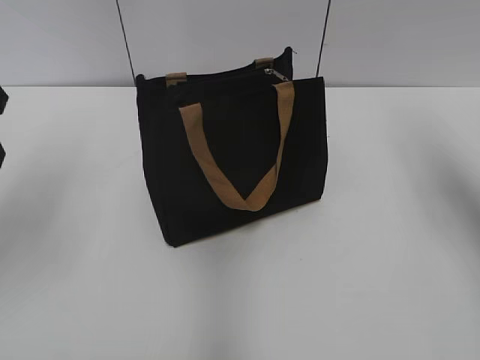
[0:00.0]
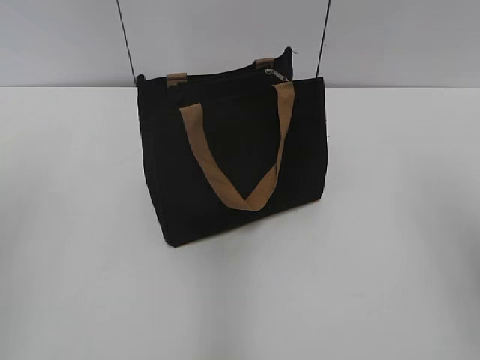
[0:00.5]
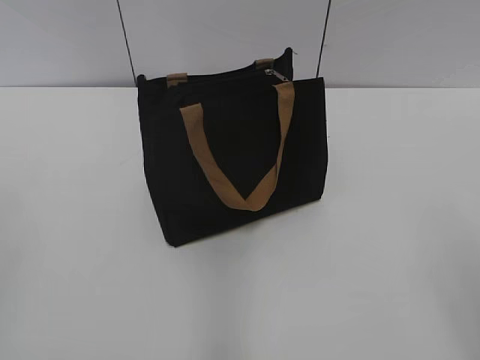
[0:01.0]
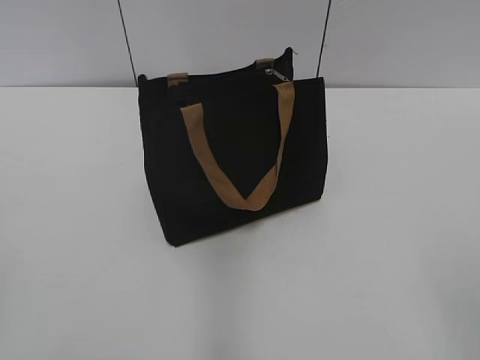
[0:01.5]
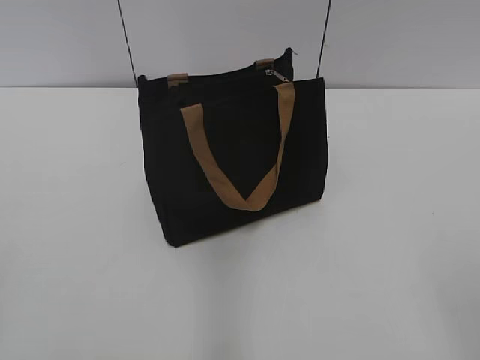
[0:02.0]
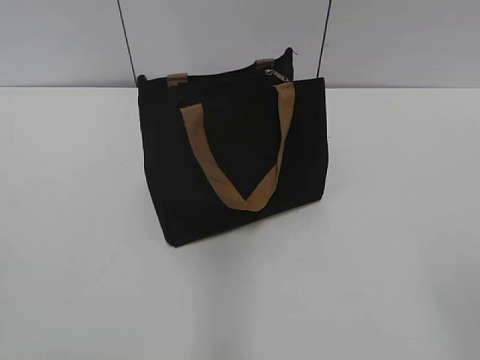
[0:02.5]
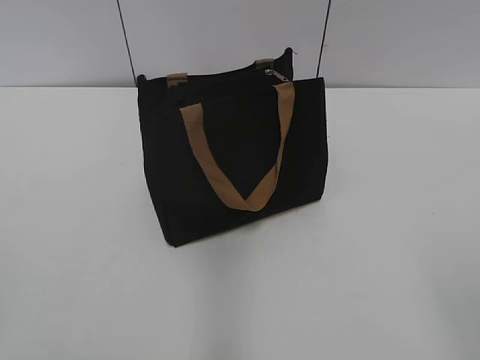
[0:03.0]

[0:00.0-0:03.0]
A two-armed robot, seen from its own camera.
0:00.0 to 0:01.5: Both grippers move backward, approximately 30 cm.

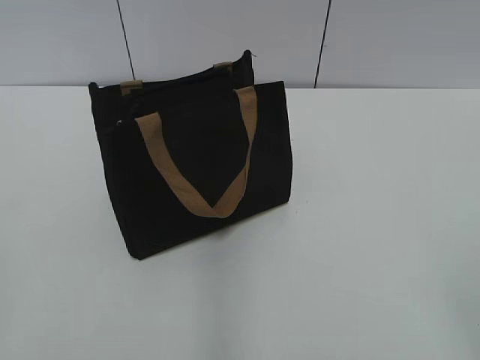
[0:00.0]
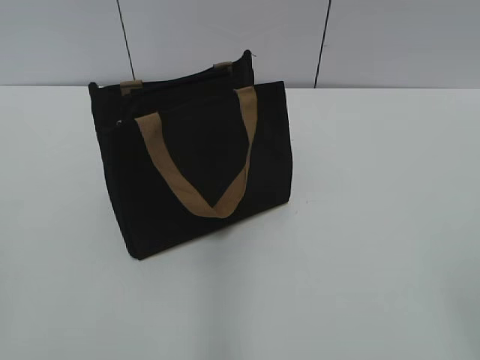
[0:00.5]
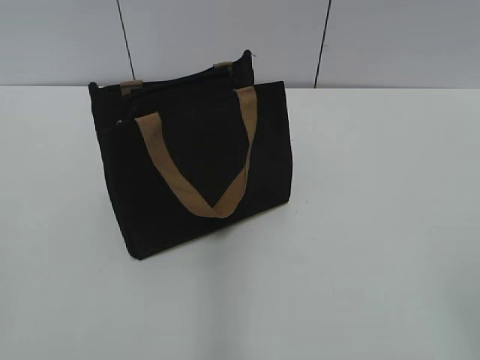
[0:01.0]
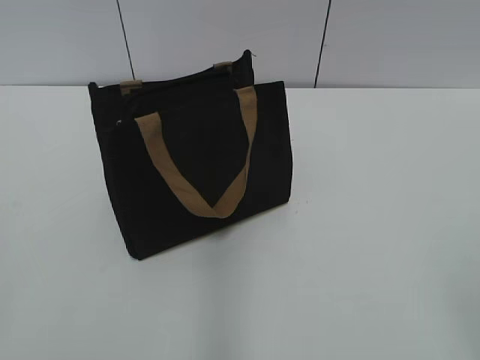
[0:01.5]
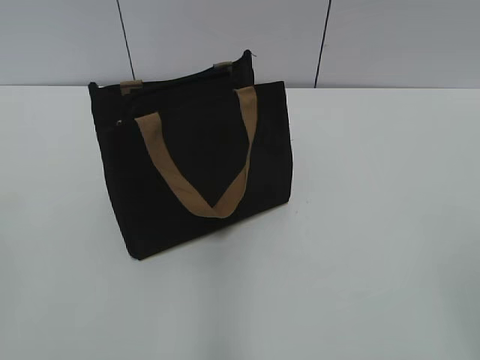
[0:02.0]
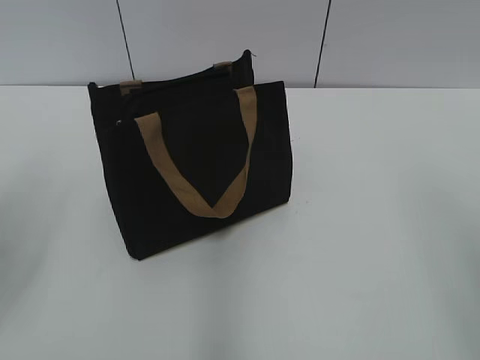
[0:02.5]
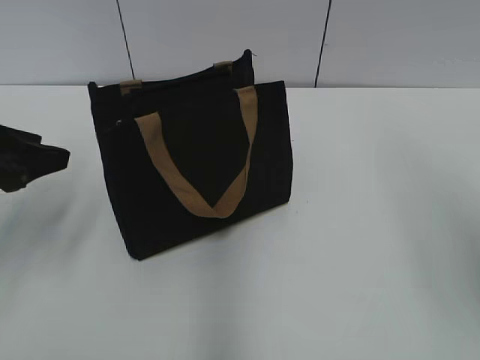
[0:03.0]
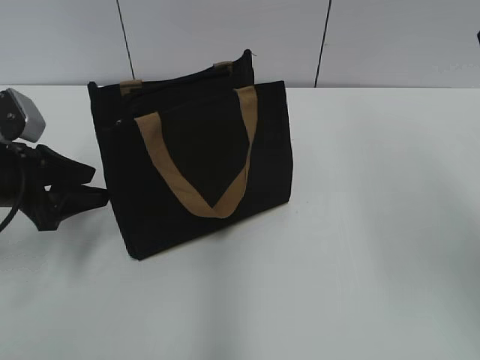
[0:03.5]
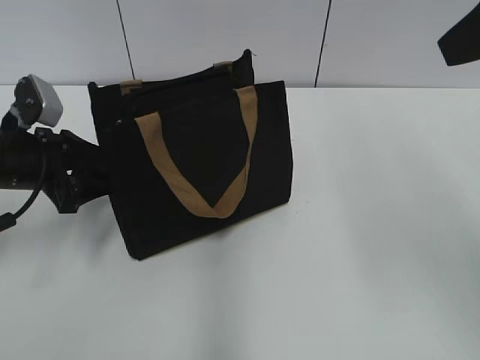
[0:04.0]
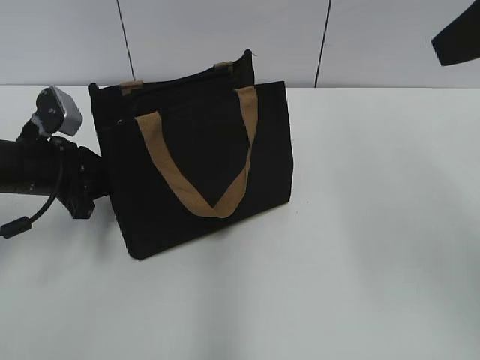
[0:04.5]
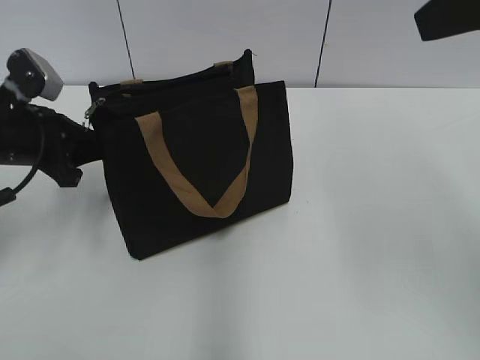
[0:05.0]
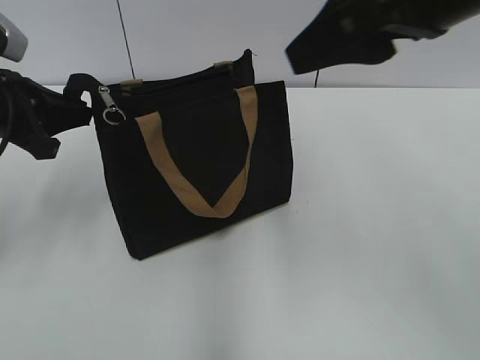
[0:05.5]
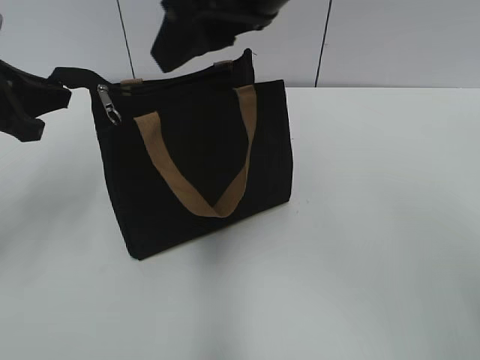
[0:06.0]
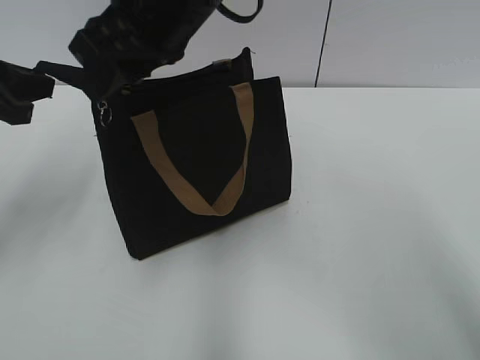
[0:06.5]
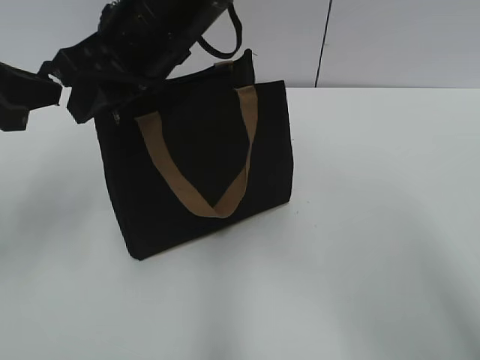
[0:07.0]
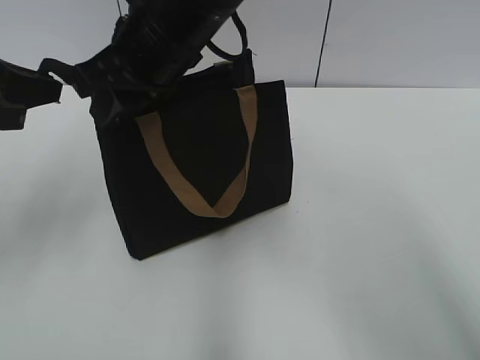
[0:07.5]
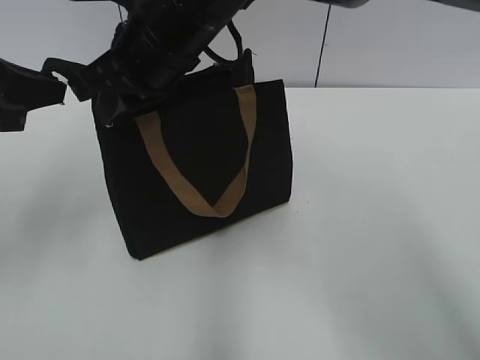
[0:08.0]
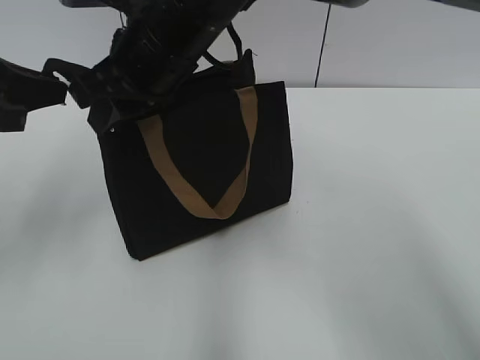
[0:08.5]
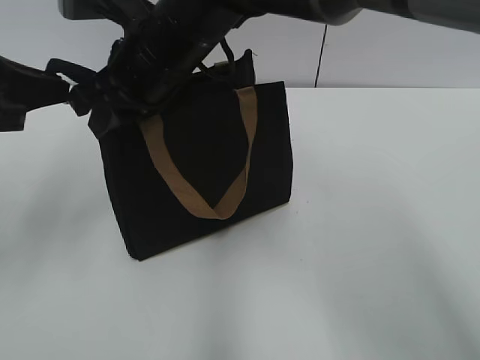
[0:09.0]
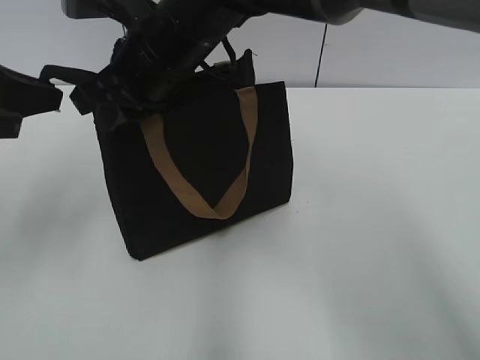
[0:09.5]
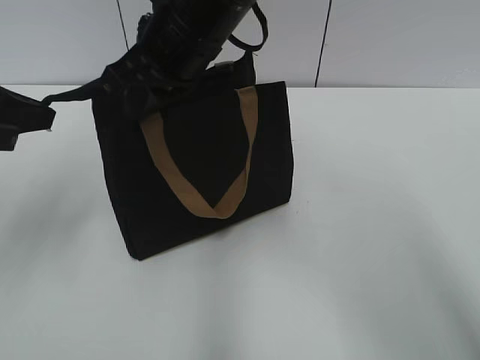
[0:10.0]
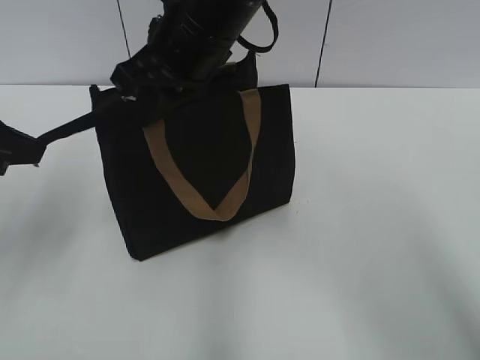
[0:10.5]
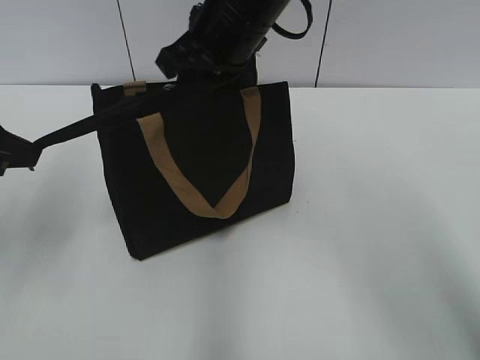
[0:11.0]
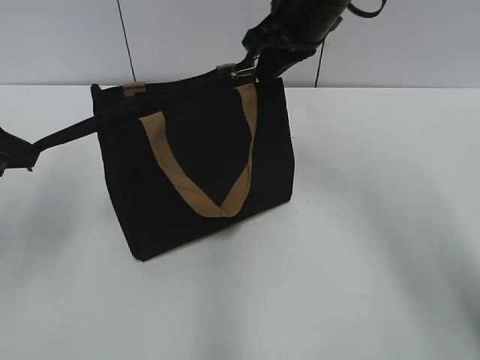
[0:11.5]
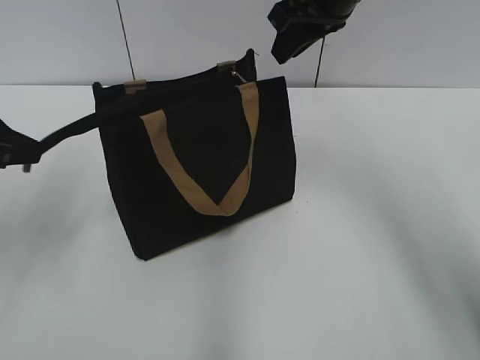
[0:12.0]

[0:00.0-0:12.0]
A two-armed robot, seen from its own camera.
Step, 0:00.0 to 0:11.5: Zip up the bag with your right hand.
0:02.0 to 0:04.0: The right gripper heads forward and upward, covering roughly 25 cm, while the left gripper heads forward and downward, covering approximately 30 cm.
0:04.0 to 0:06.0: The right gripper travels to the left and forward by approximately 20 cm. Meanwhile the left gripper moves upward, some 10 cm, and closes.
0:06.0 to 0:08.0: The right gripper shifts roughly 15 cm to the left, downward and forward, and closes its fingers.
0:08.0 to 0:10.0: The grippers stay close to where they were, moving slightly.
0:10.0 to 0:12.0: The right gripper moves to the right and forward, about 15 cm.

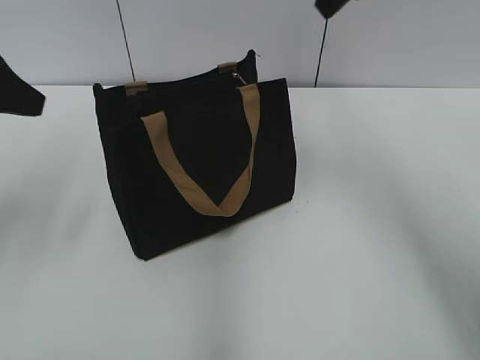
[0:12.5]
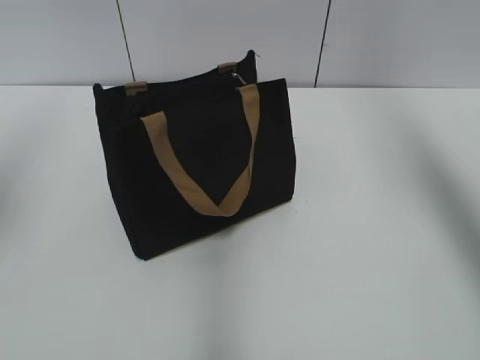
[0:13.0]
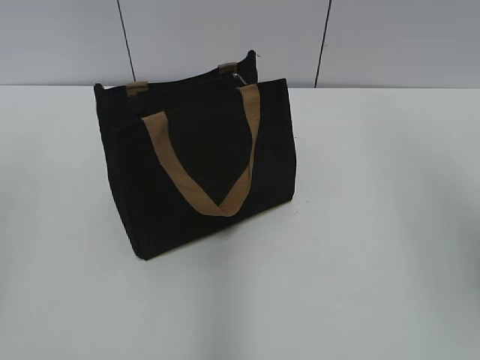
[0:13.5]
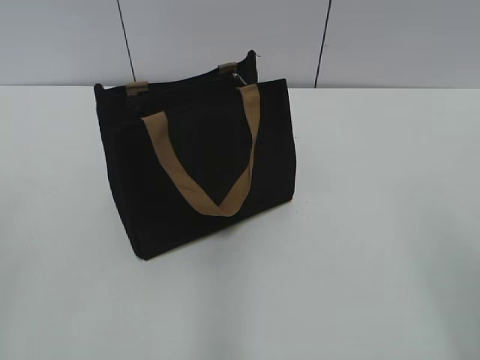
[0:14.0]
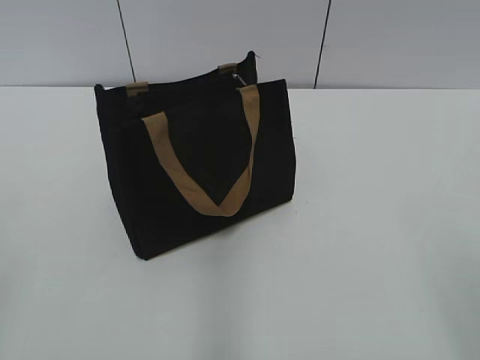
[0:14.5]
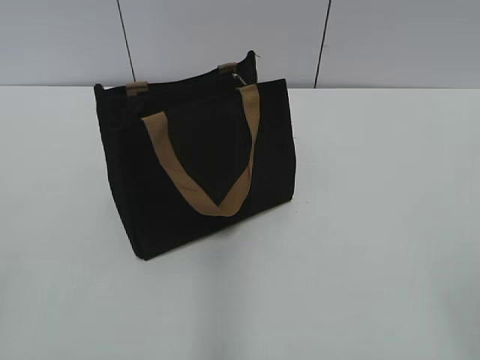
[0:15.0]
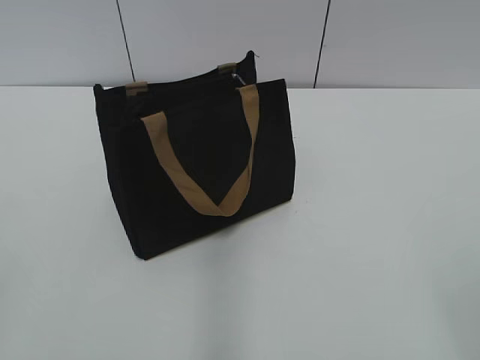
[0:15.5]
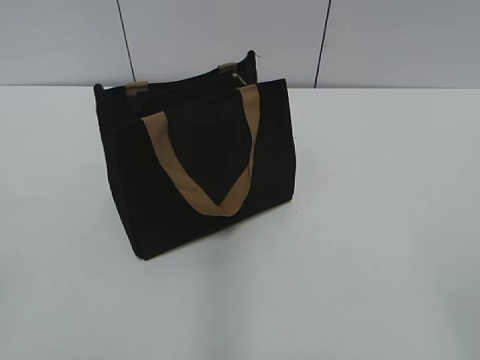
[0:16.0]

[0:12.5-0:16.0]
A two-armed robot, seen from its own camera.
0:12.5 to 0:14.5: The left gripper shifts roughly 25 cm backward, while the right gripper travels backward and to the right by some 35 cm.

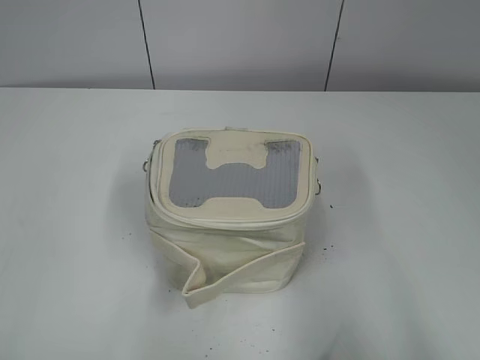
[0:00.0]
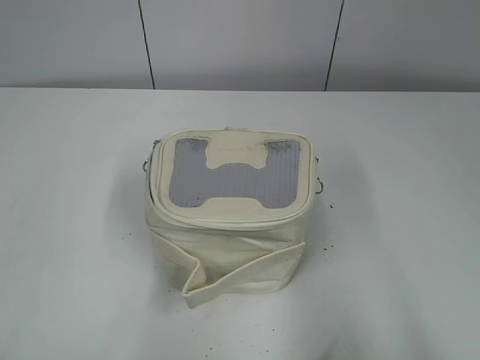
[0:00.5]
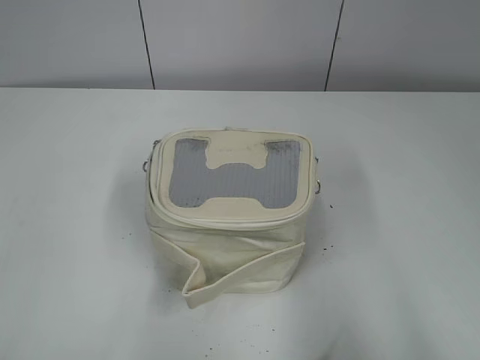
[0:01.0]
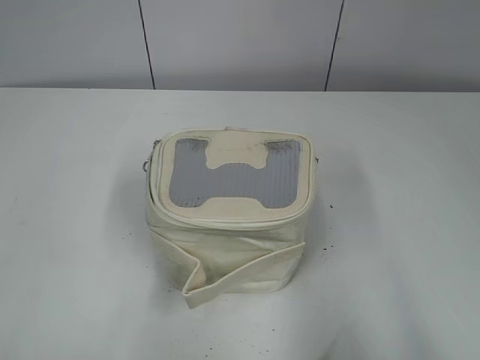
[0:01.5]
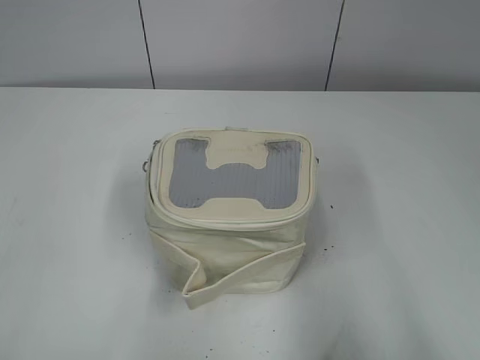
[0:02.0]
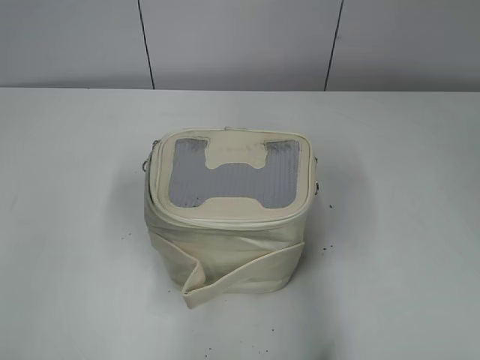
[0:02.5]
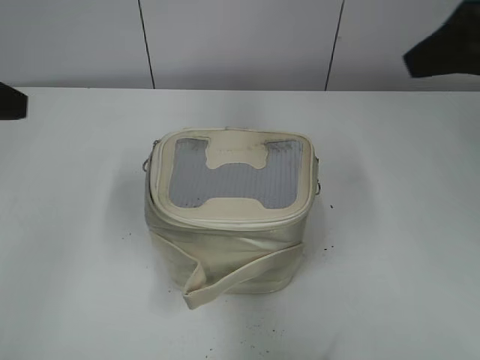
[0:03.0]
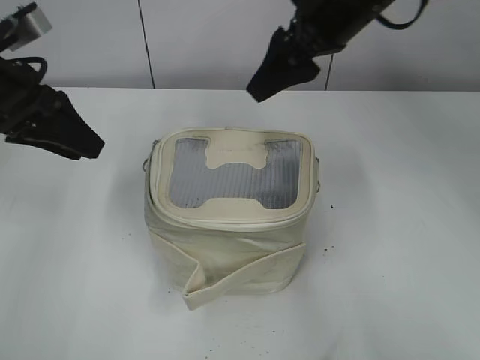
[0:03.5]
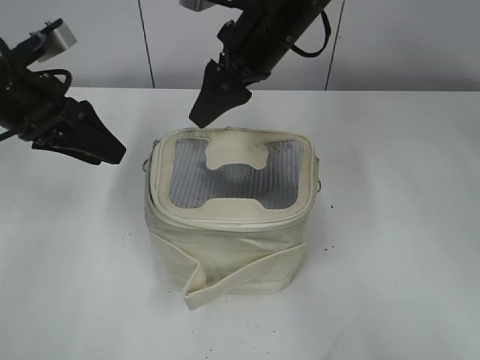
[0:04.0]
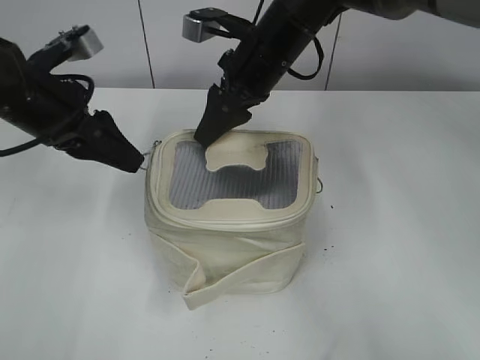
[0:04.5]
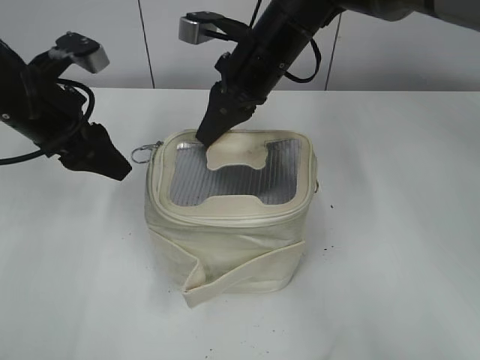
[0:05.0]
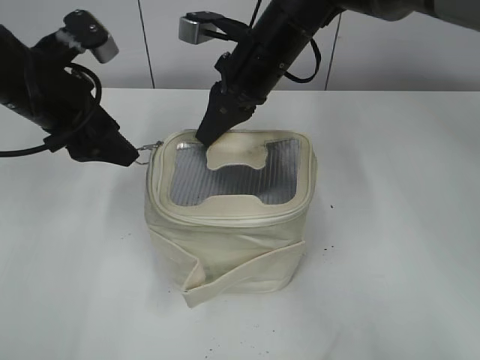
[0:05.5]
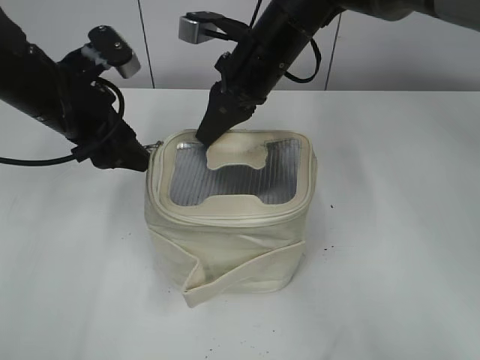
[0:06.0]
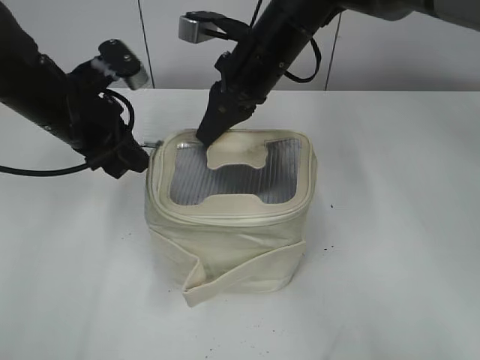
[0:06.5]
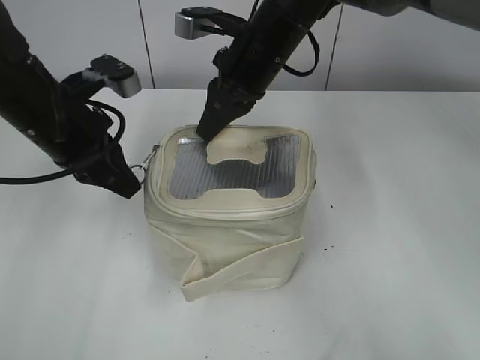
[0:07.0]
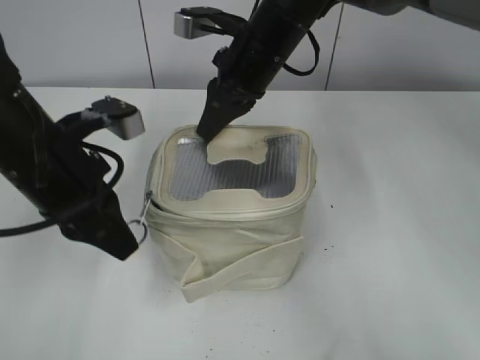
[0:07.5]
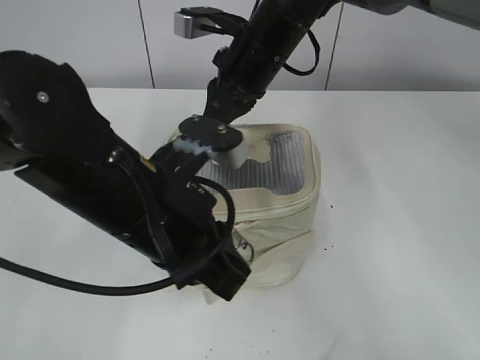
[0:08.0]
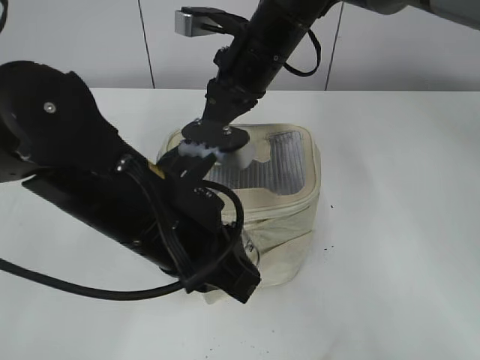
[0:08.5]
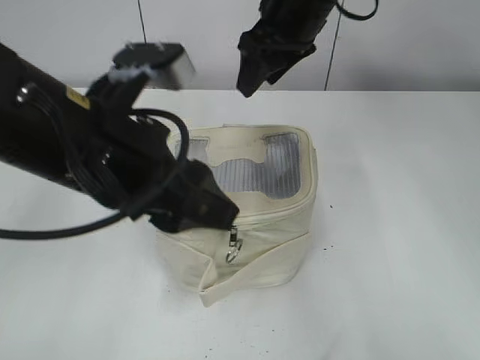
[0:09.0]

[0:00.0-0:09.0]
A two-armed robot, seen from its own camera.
Step, 0:00.0 to 0:08.5: Zip up the bag with your left hand.
0:02.0 to 0:04.5: The right gripper goes roughly 50 cm forward and to the left. The left gripper goes some 30 cm forward.
0:04.5 to 0:07.0: The left gripper closes up, while the right gripper closes up.
0:07.0 to 0:09.0: The left gripper moves backward and to the right, roughly 15 cm, and opens up, while the right gripper travels upward by some 5 cm, and opens up.
